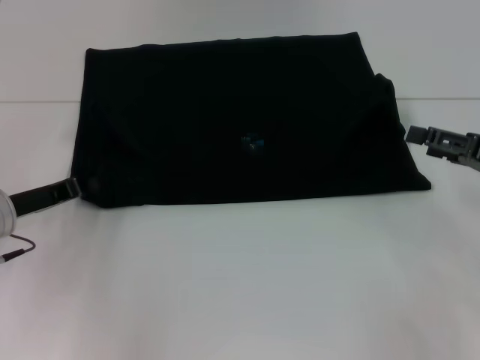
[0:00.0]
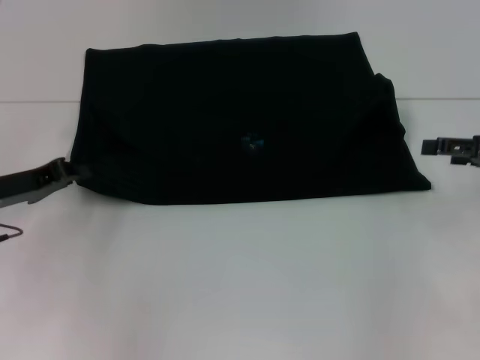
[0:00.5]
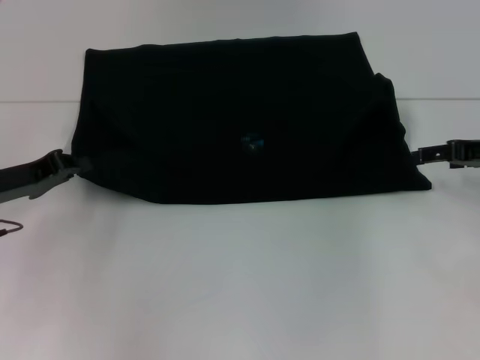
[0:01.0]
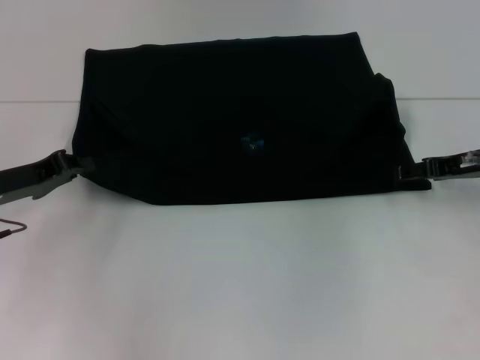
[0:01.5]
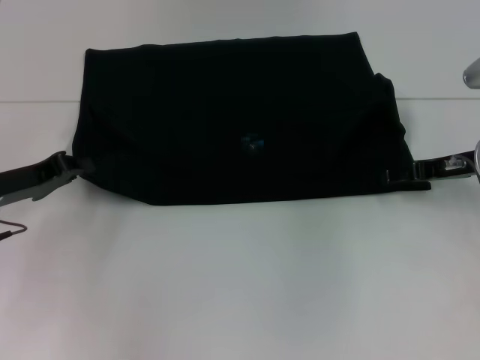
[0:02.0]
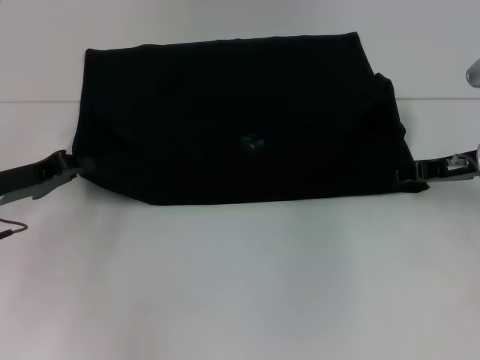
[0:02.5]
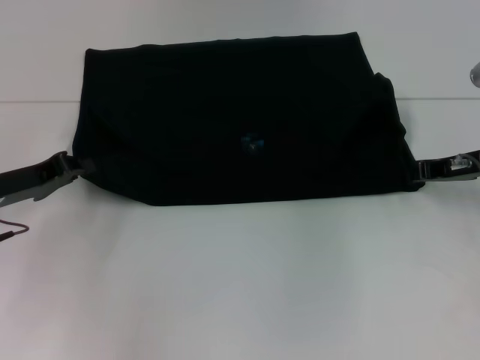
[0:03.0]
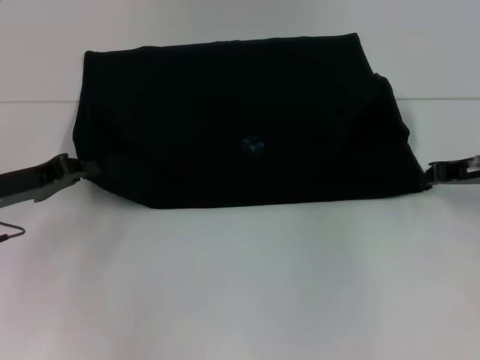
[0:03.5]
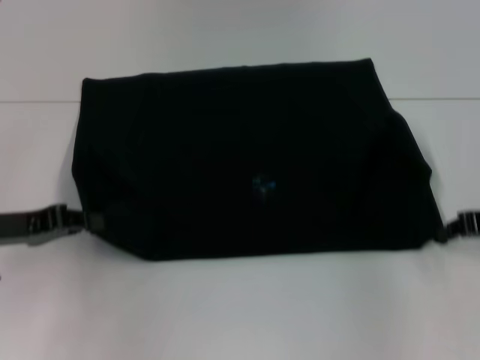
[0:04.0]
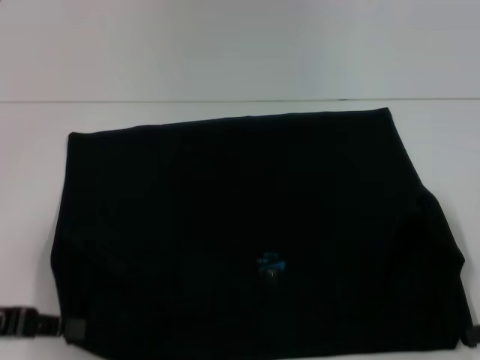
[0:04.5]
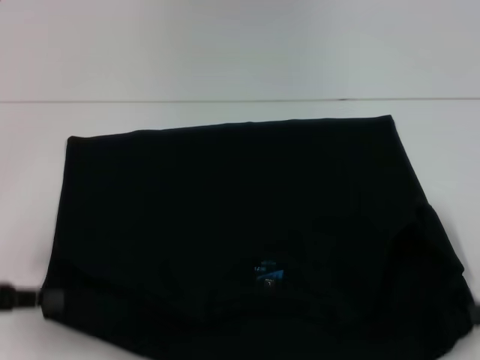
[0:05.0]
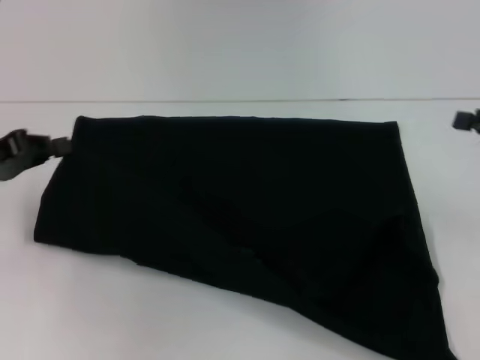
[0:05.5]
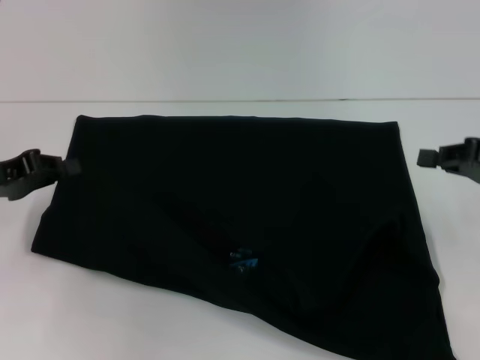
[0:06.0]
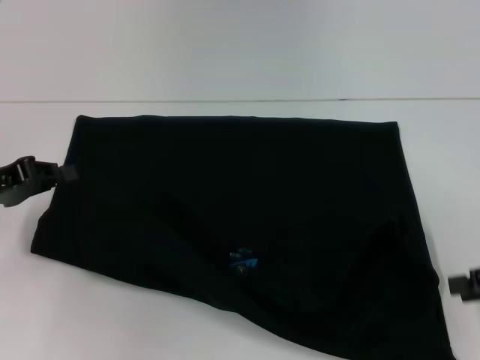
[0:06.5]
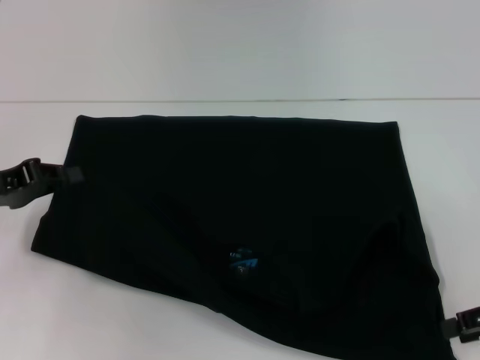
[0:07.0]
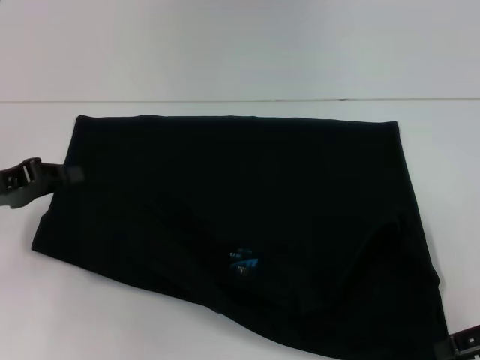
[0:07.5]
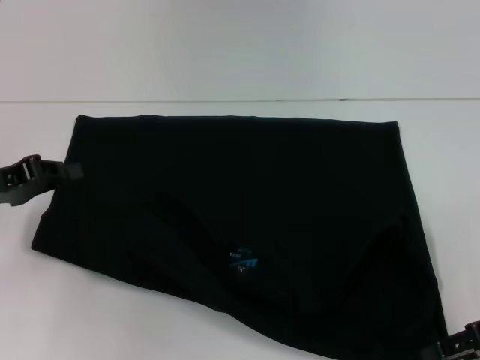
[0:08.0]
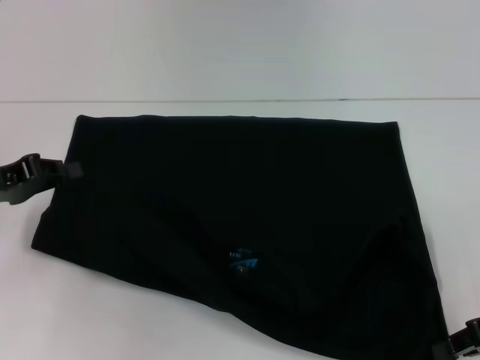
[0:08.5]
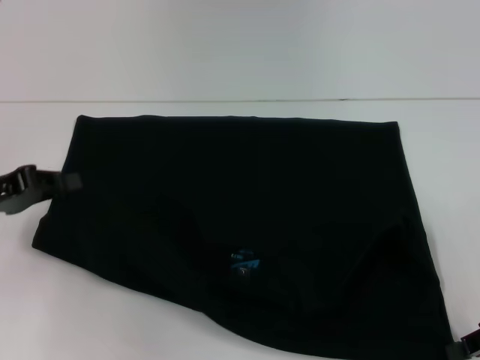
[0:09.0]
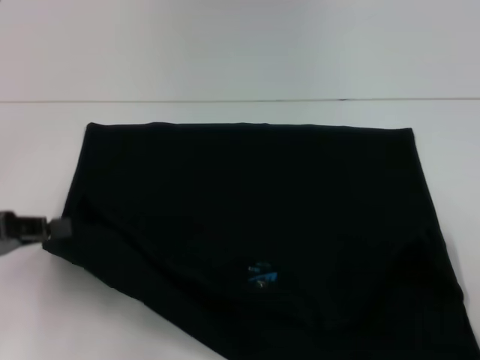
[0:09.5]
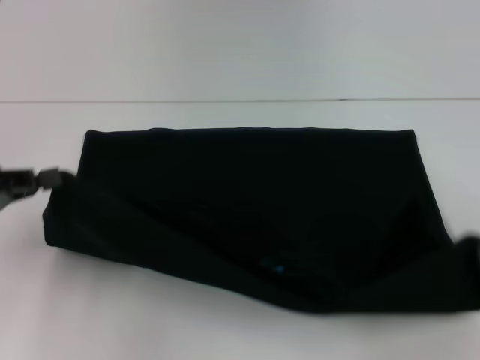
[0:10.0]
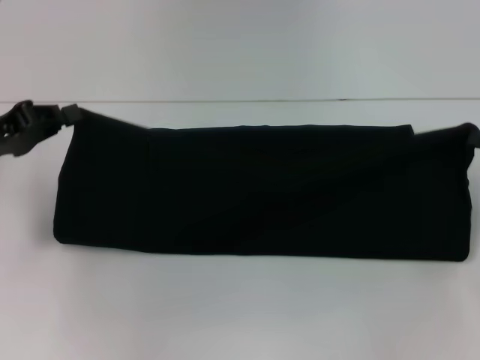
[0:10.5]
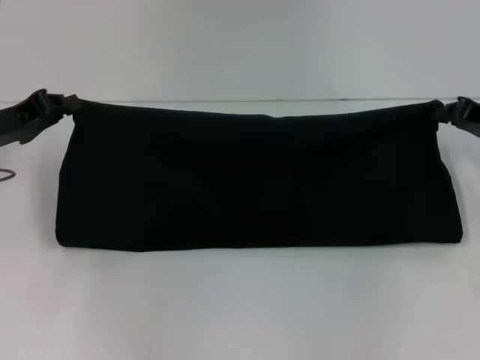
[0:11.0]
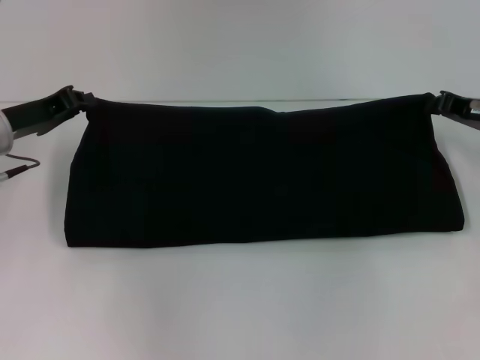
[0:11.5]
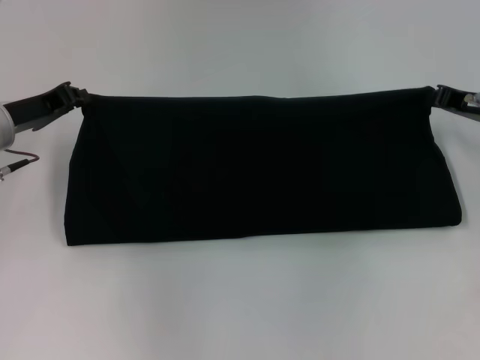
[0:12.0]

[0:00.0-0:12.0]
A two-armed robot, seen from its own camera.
Step, 0:00.0 to 0:04.5: Pull the clothes with your left hand.
Step, 0:00.0 to 0:04.5: Pull the clothes with your right hand.
0:00.0 to 0:02.0: The right gripper travels forward and to the left by roughly 10 cm.
0:02.0 to 0:04.0: The right gripper is displaced backward by approximately 5 cm, and closes up.
0:04.0 to 0:06.0: The right gripper reaches roughly 10 cm backward, then returns. The left gripper goes backward and returns, roughly 5 cm each way.
0:06.0 to 0:08.0: The right gripper moves backward, approximately 5 cm, and opens its fingers.
0:08.0 to 0:10.0: The left gripper shifts by approximately 5 cm. Meanwhile the right gripper moves to the right, about 5 cm, and closes its fingers.
0:10.0 to 0:12.0: The right gripper moves forward and to the left, approximately 15 cm; the left gripper goes approximately 15 cm forward and to the right.

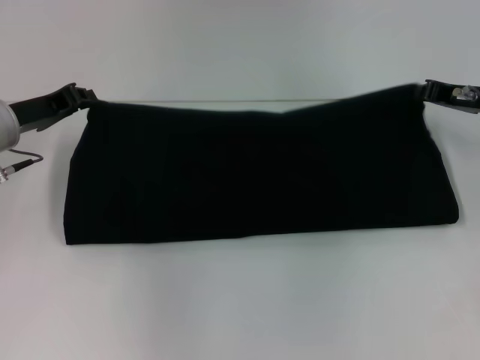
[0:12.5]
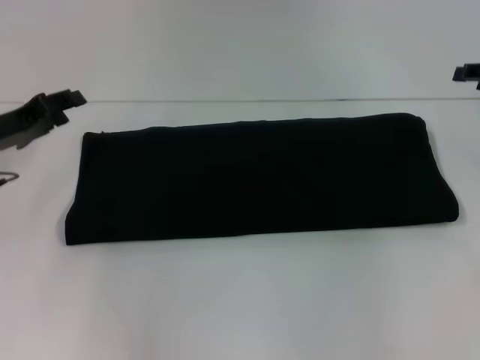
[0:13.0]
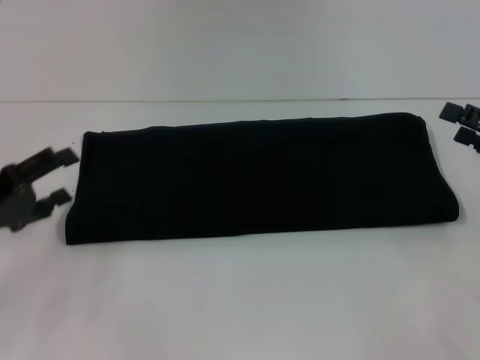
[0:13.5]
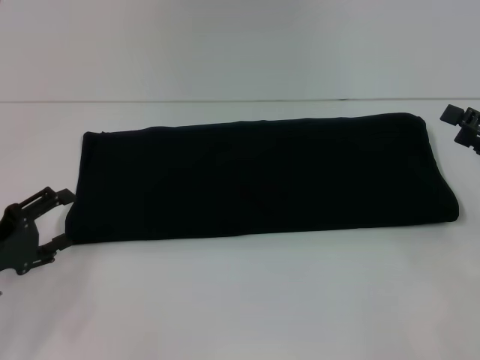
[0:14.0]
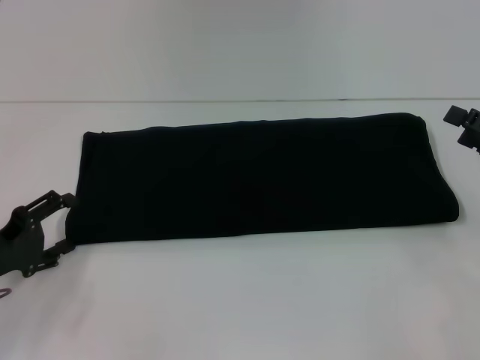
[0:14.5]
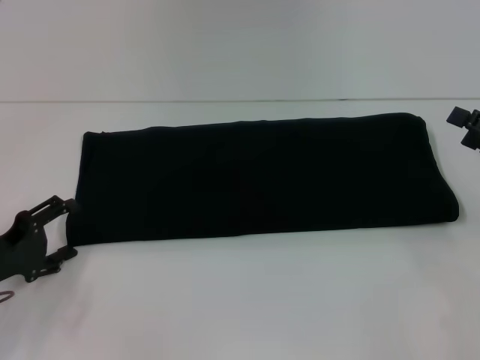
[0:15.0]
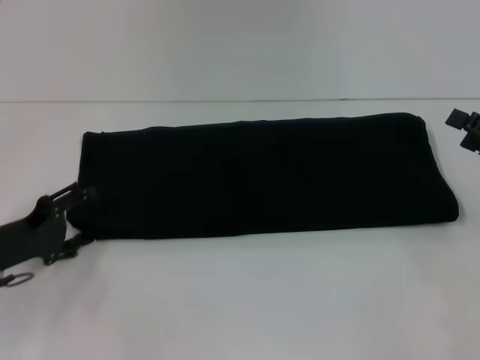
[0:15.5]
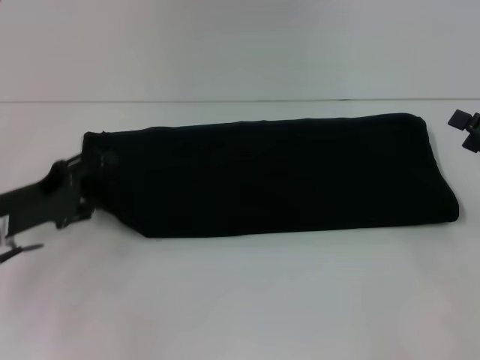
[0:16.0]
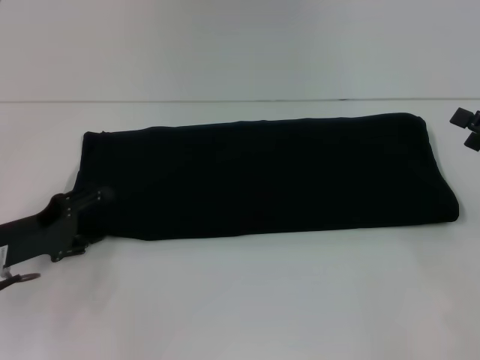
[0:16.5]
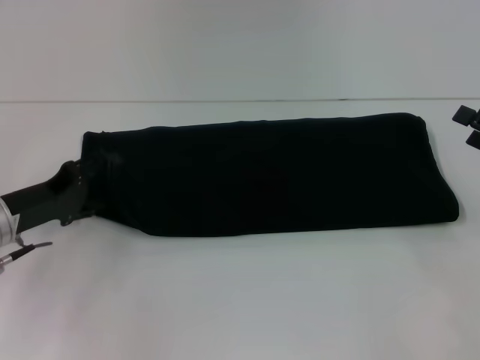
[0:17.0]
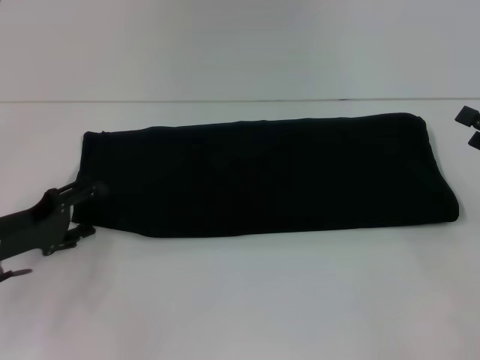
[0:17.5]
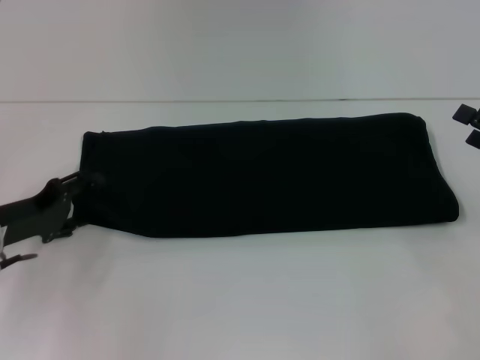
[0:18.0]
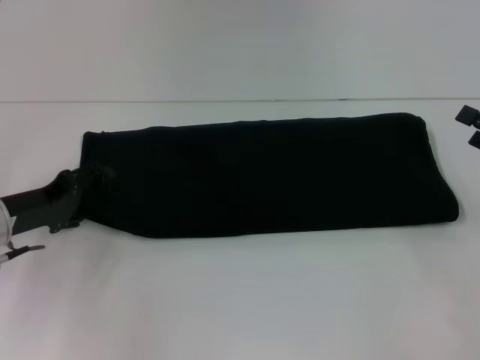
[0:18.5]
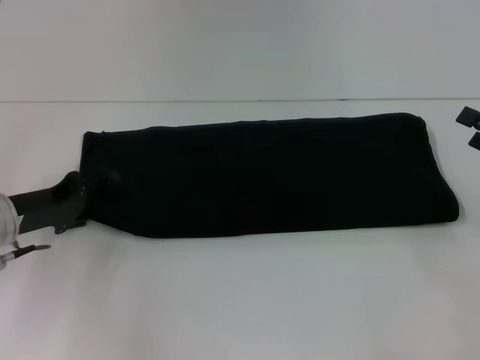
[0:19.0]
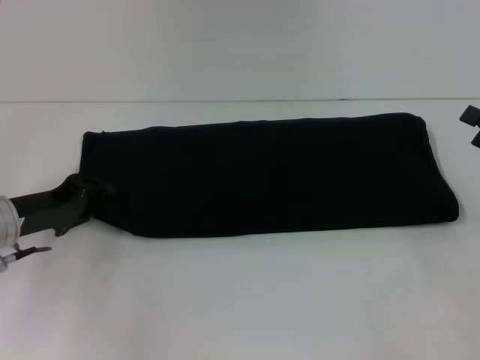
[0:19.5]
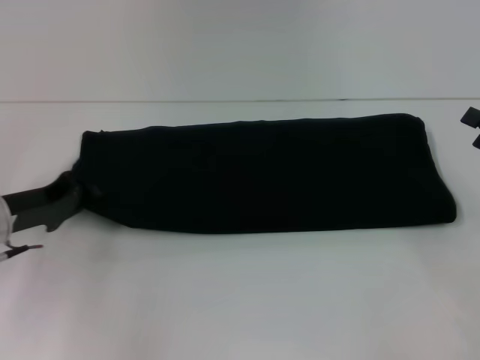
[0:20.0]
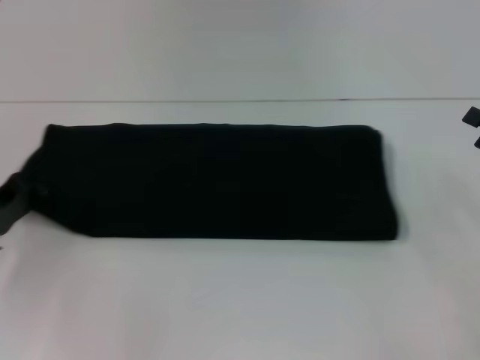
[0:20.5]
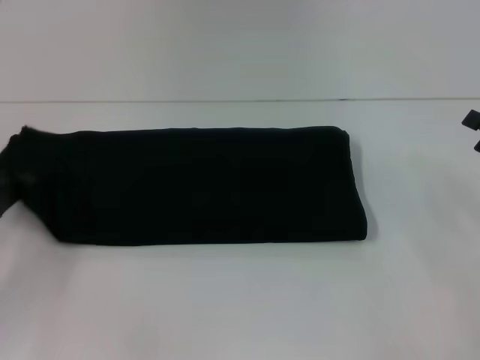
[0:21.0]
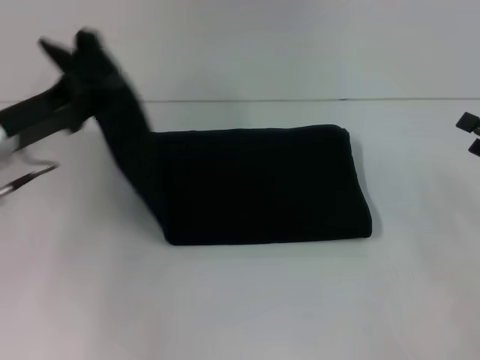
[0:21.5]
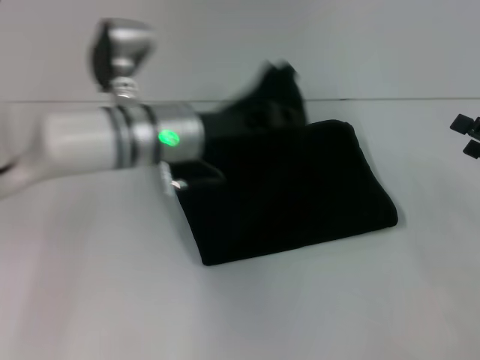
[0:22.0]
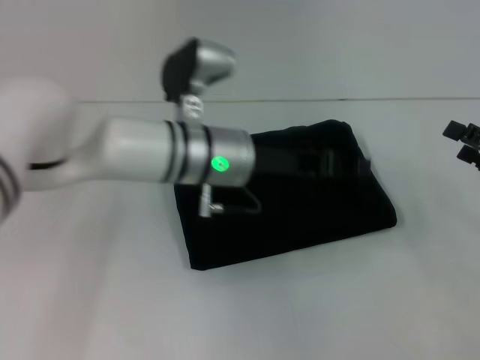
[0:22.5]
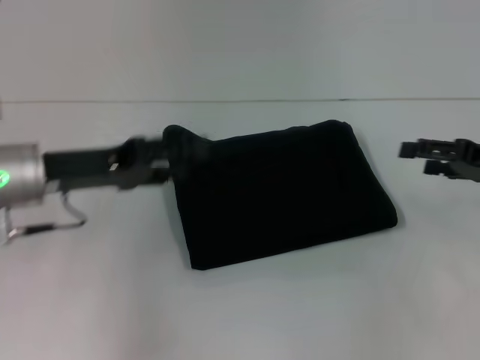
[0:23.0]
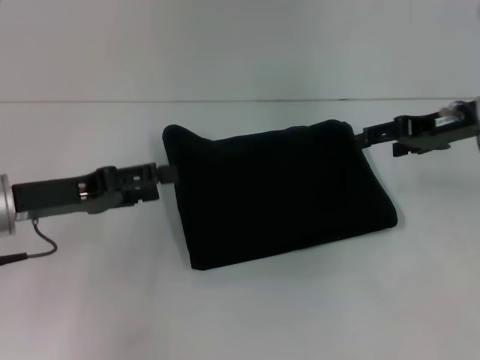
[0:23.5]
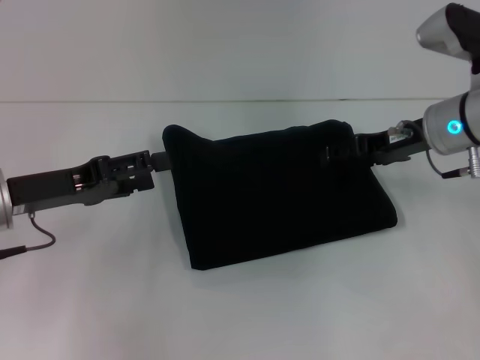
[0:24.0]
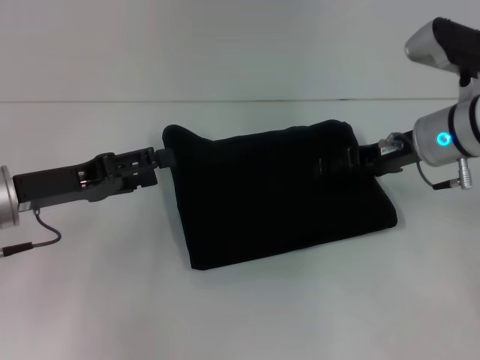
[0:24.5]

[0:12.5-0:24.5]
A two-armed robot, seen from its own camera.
Step, 0:12.5 to 0:23.0: Fold the clothes with your left hand.
0:12.5 to 0:14.5: The right gripper is displaced backward and to the right by some 15 cm, and opens up; the left gripper shifts approximately 15 cm backward and downward, and opens up.
0:16.5 to 0:18.5: There are only small adjustments of the grippers.
0:18.5 to 0:20.5: The left gripper closes its fingers.
0:20.5 to 0:22.5: The left gripper shifts approximately 25 cm to the right.
0:22.5 to 0:24.5: The right gripper shifts roughly 20 cm to the left and forward, while the left gripper travels to the left by about 20 cm, and opens.

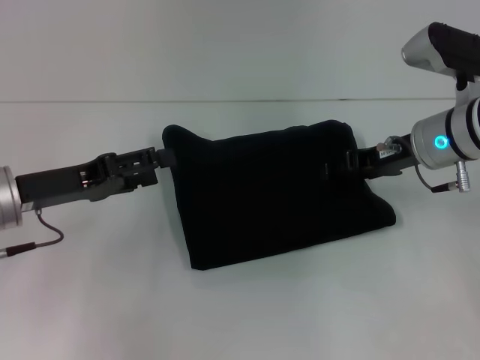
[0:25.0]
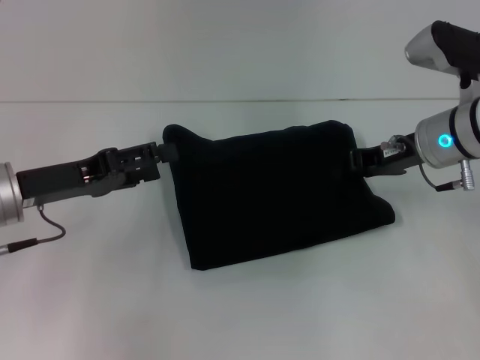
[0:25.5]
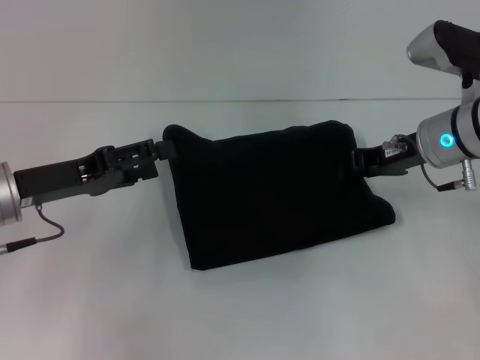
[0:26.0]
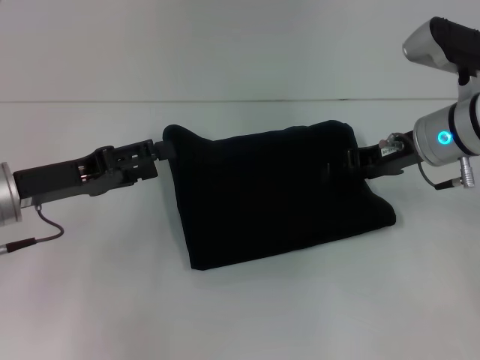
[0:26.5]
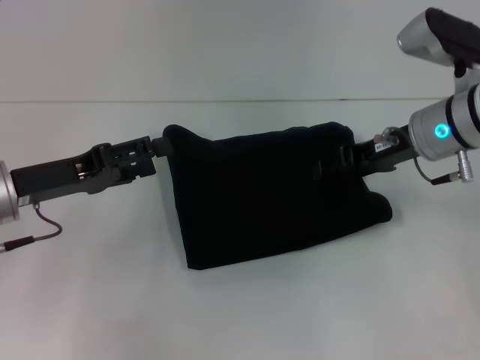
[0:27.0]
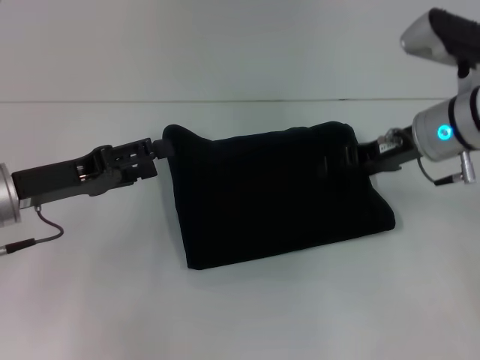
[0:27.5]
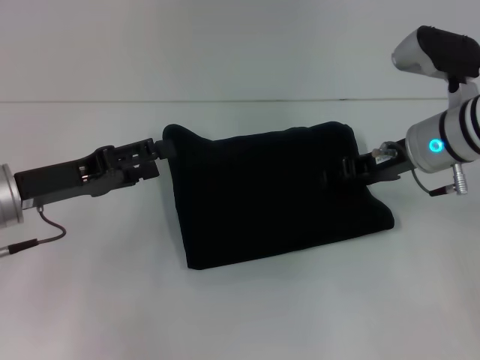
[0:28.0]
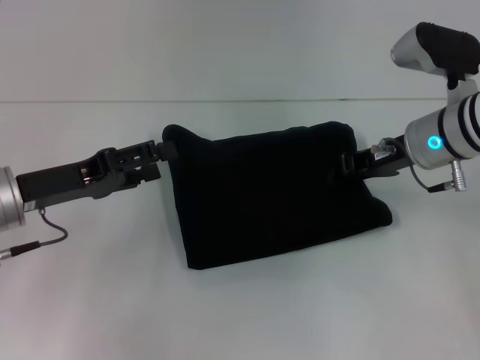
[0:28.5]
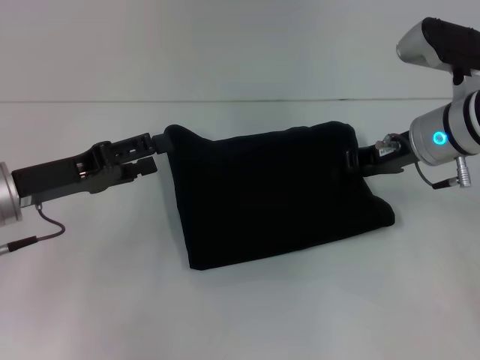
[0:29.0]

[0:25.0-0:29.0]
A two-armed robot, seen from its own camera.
0:25.0 to 0:27.0: The right gripper closes, then reopens.
0:27.0 to 0:29.0: The right gripper closes up.
